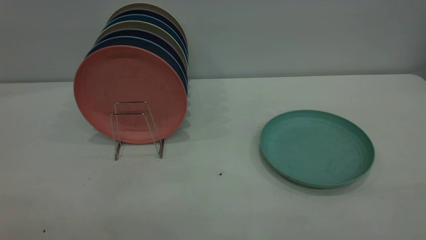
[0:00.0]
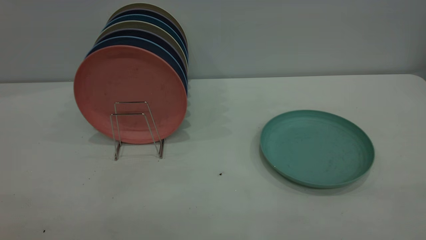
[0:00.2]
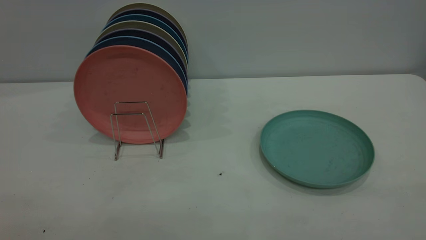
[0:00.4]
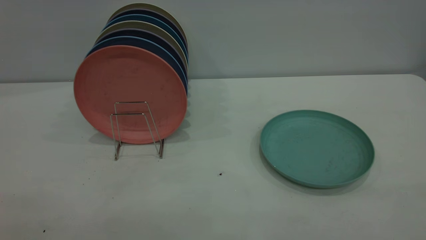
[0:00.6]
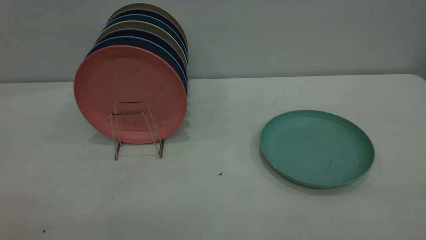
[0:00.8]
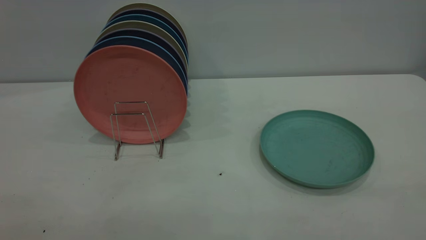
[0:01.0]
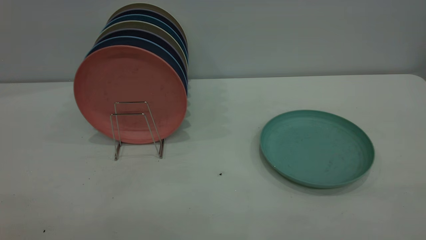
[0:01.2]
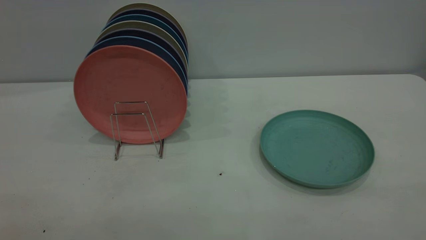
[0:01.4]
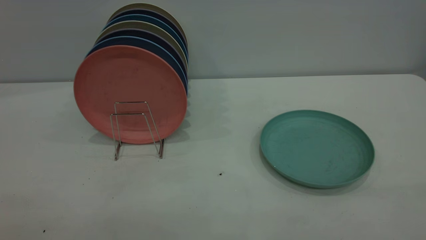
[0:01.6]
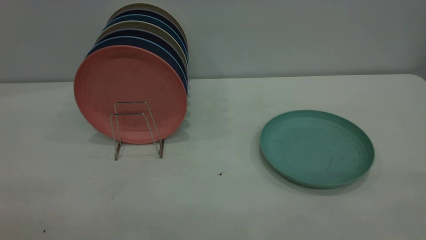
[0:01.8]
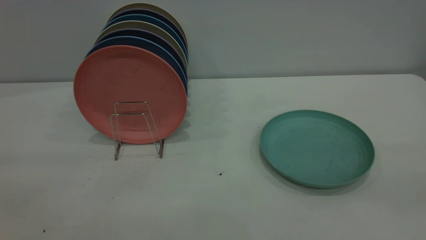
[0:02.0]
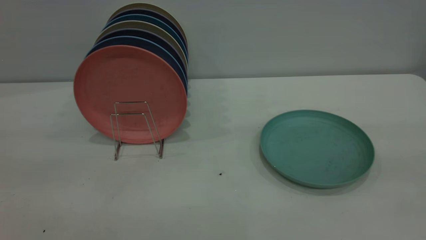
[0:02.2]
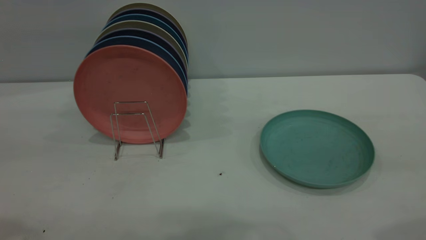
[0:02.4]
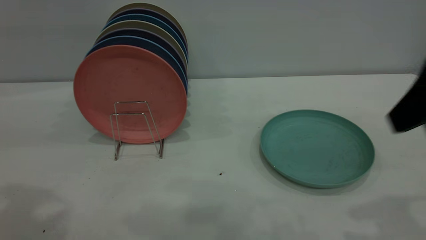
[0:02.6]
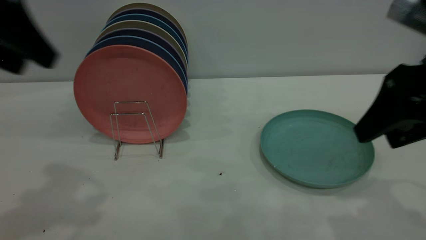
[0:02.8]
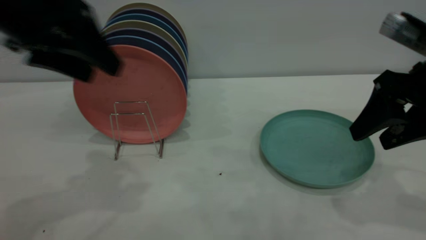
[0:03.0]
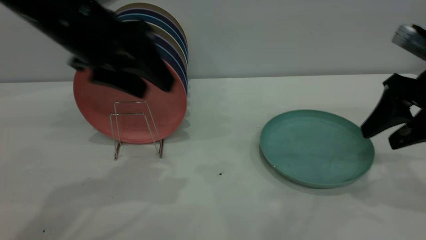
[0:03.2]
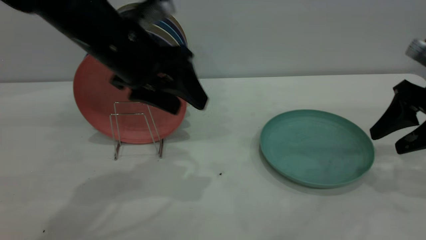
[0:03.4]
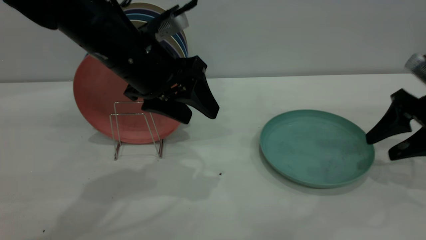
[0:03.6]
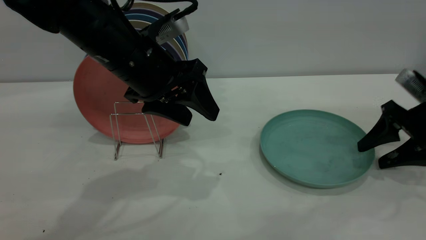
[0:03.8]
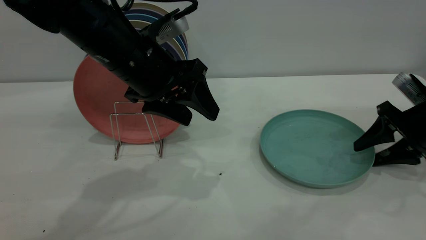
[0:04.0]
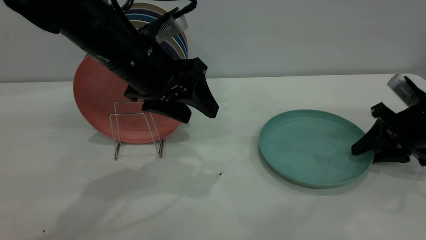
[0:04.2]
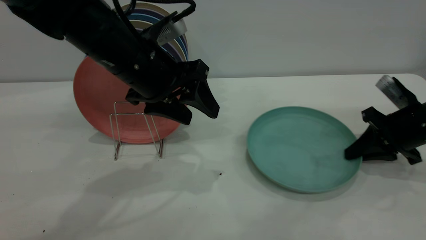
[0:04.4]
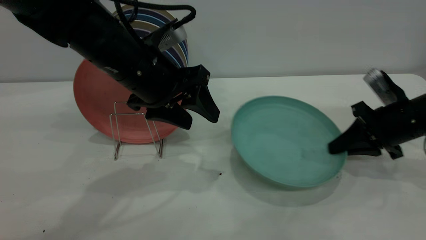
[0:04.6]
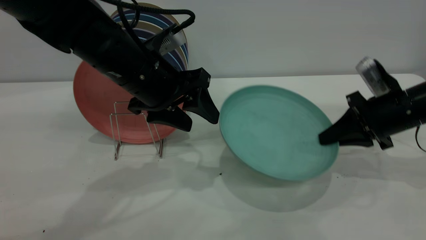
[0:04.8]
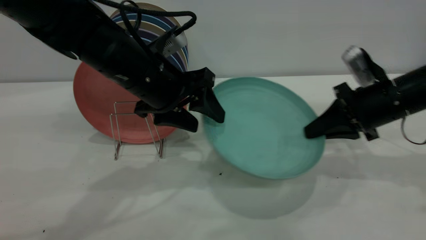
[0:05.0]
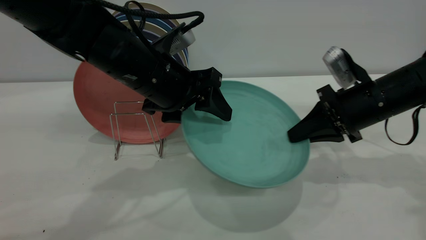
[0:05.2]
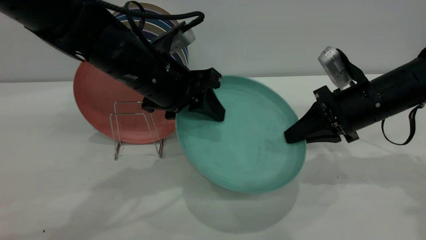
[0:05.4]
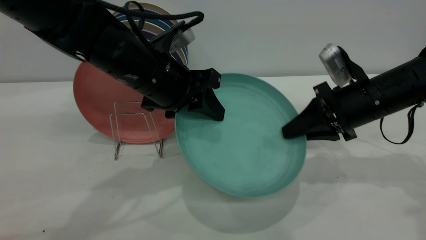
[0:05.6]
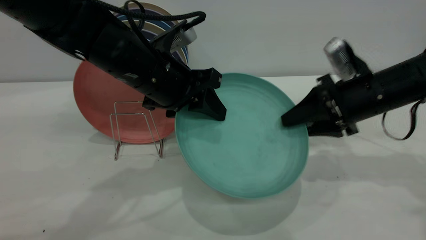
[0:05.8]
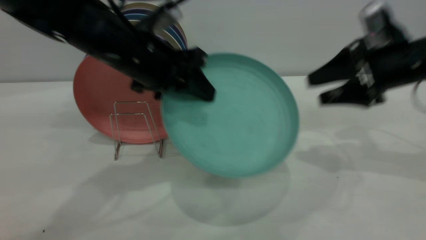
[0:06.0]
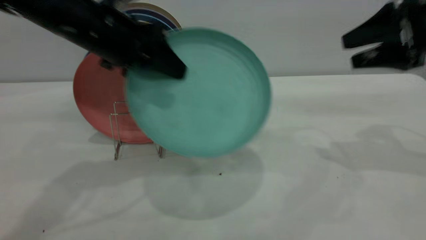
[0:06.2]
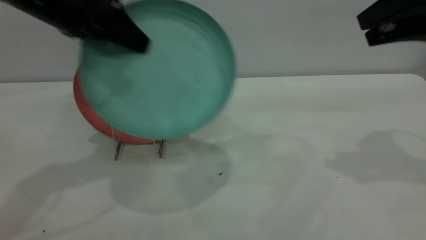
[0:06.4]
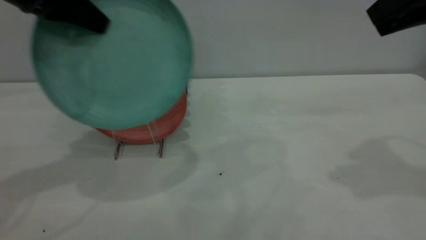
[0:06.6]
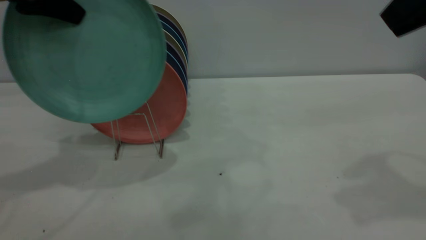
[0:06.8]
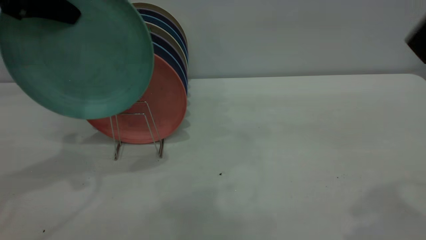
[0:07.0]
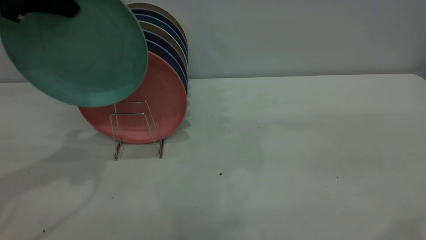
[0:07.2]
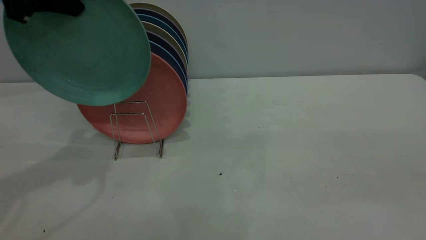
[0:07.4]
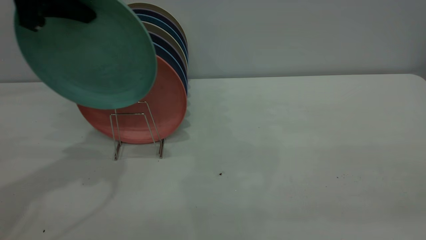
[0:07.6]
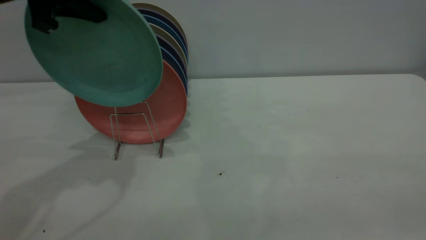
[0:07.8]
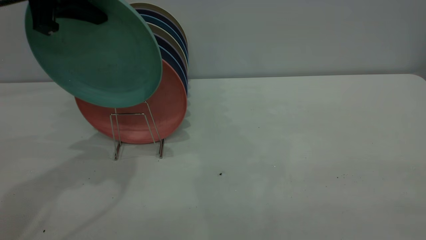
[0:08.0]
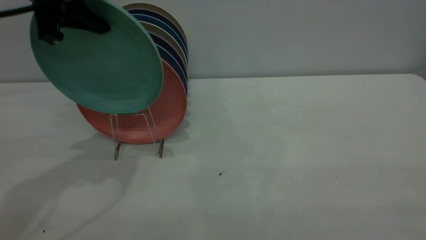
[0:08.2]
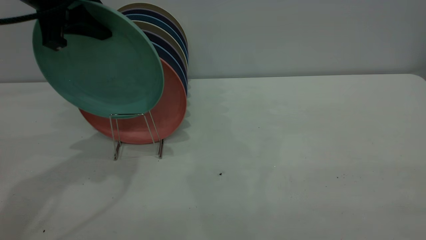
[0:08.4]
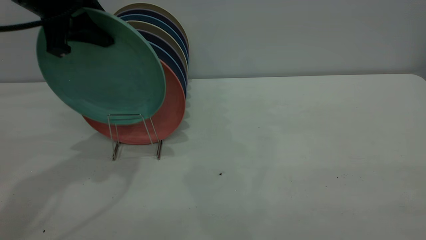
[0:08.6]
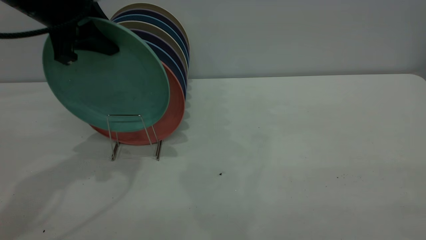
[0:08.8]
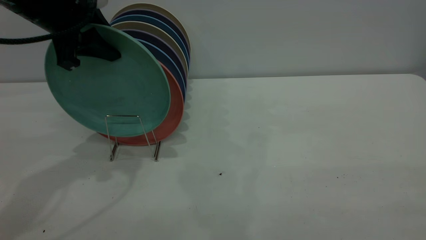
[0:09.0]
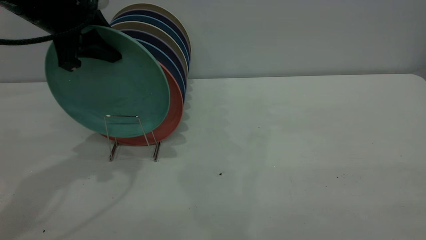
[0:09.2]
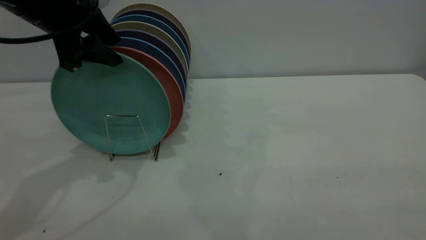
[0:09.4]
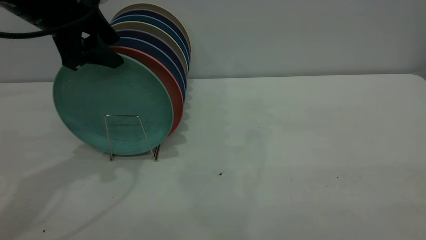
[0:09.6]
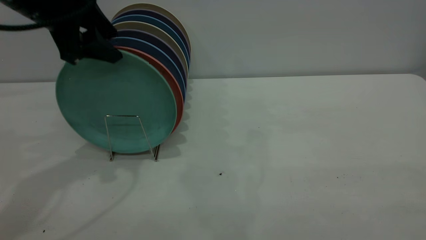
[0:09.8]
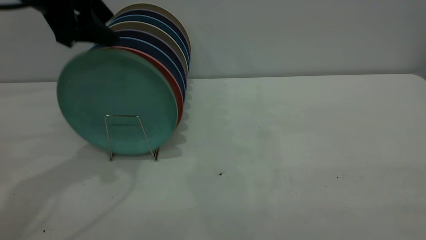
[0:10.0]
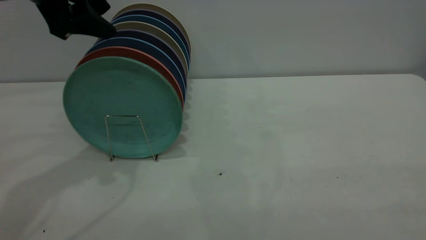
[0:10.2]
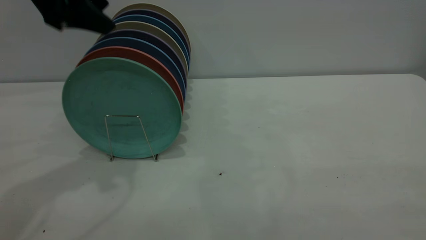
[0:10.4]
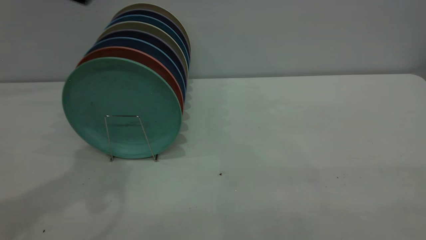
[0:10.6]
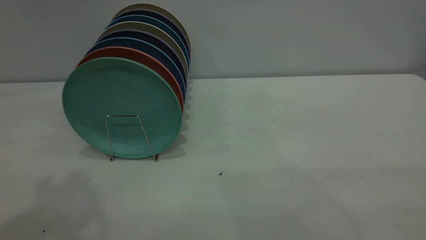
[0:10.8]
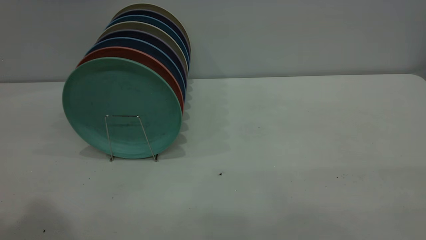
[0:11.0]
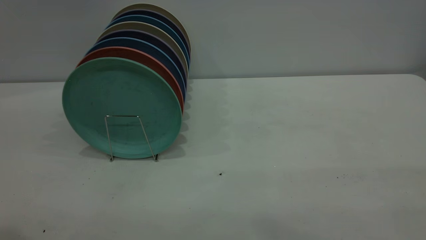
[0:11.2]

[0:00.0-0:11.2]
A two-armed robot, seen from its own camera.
Task of the whole recording: the right gripper grasp the green plate, the right gripper pass the green plate to the left gripper, and the left gripper place the green plate on the plate rack.
Step, 0:00.0 to 0:04.6: Pick up the plate with the right gripper.
Step, 0:04.8 to 0:05.8: Pass the plate from the right gripper to the left gripper.
Step, 0:06.0 to 0:10.2: Place the plate on the shelf.
0:00.0 to 0:01.6: Both grippers stay about where they are.
0:01.6 to 0:03.2: The left gripper shifts some 35 cm forward, while the right gripper shifts roughly 35 cm forward and downward.
0:03.2 to 0:04.8: The right gripper travels downward and forward by about 10 cm, and closes. The left gripper travels downward by roughly 5 cm.
0:04.8 to 0:06.4: The right gripper travels upward by approximately 20 cm, and opens up; the left gripper goes roughly 15 cm to the left and upward, and closes its fingers.
0:06.4 to 0:08.0: The right gripper moves backward, roughly 30 cm.
0:08.0 to 0:09.6: The left gripper heads downward, covering some 5 cm, and opens.
0:09.6 to 0:11.2: The left gripper heads backward and upward, covering approximately 30 cm.

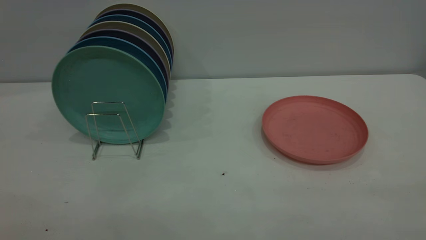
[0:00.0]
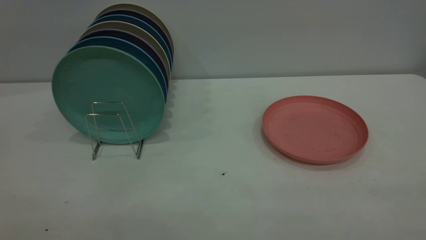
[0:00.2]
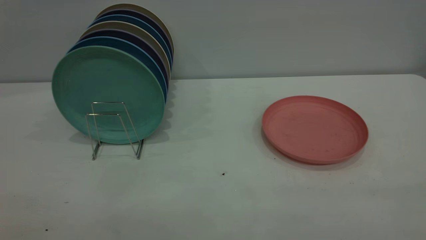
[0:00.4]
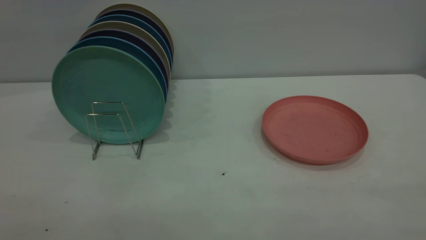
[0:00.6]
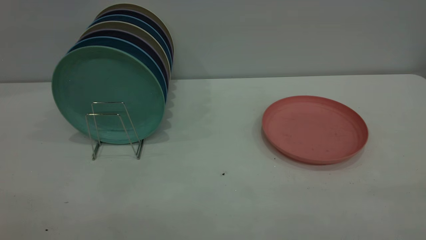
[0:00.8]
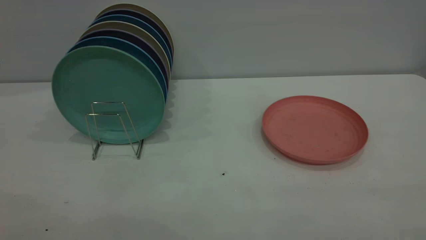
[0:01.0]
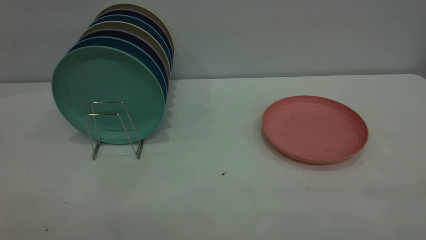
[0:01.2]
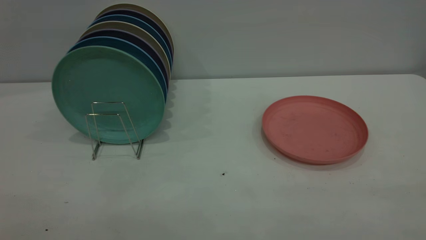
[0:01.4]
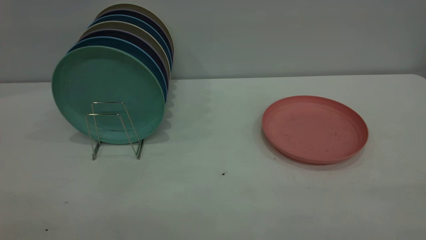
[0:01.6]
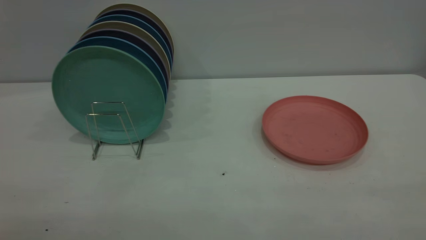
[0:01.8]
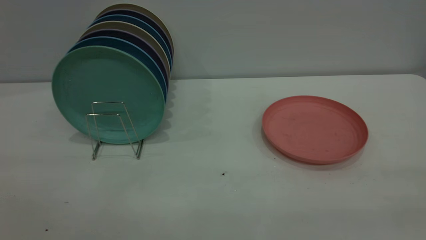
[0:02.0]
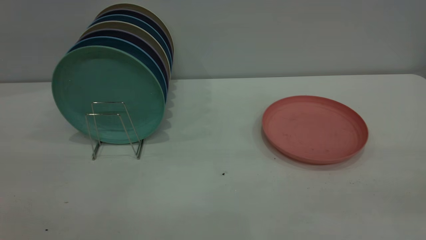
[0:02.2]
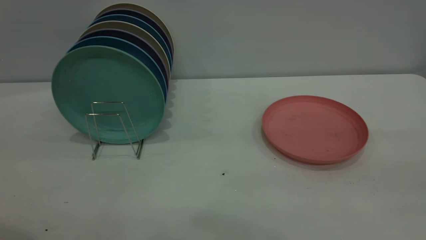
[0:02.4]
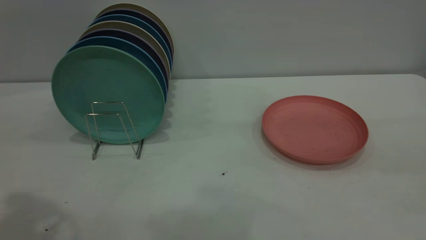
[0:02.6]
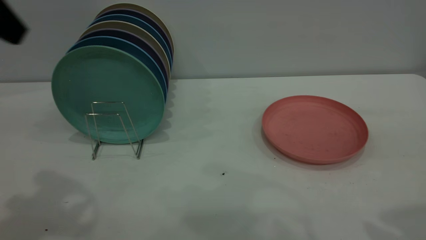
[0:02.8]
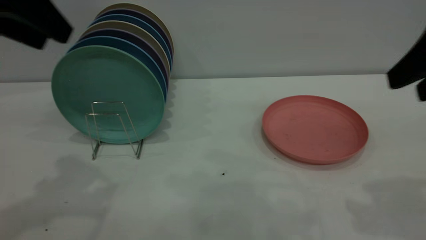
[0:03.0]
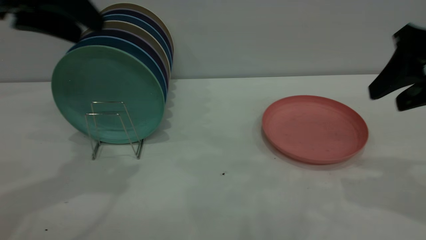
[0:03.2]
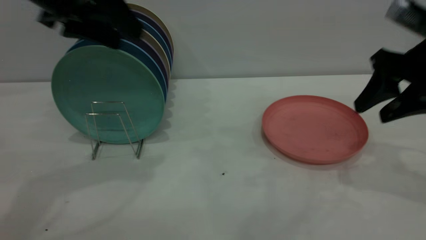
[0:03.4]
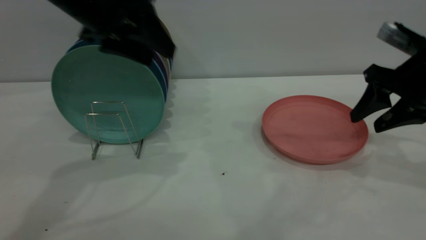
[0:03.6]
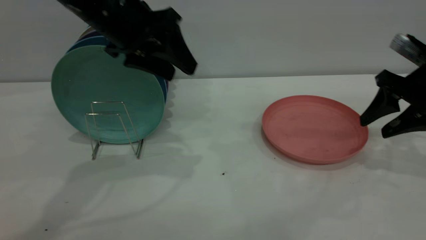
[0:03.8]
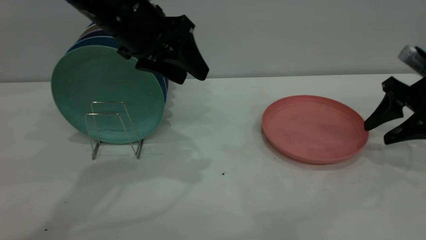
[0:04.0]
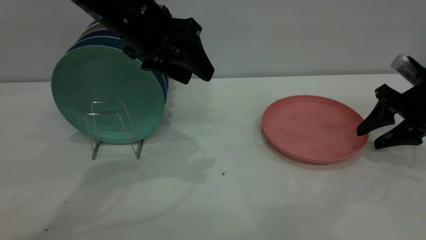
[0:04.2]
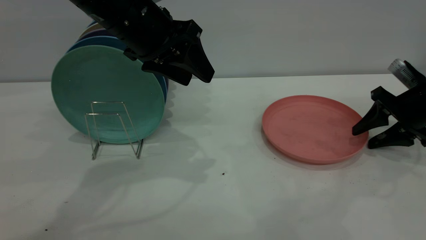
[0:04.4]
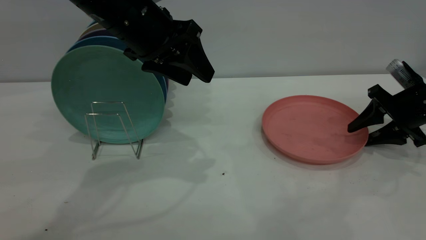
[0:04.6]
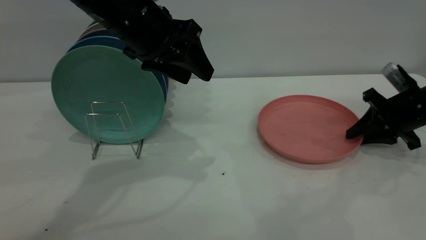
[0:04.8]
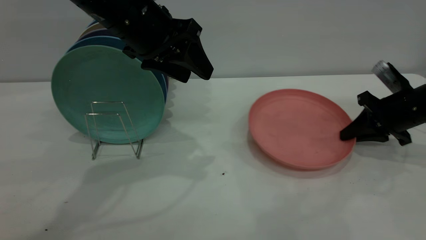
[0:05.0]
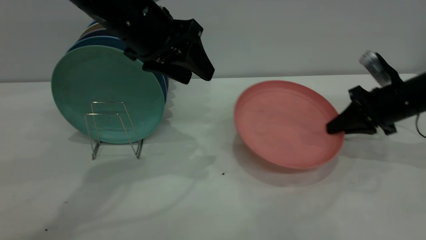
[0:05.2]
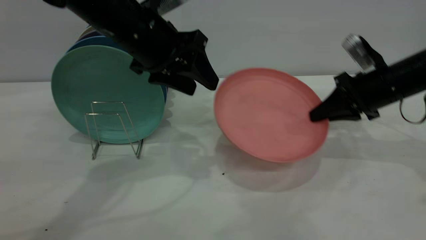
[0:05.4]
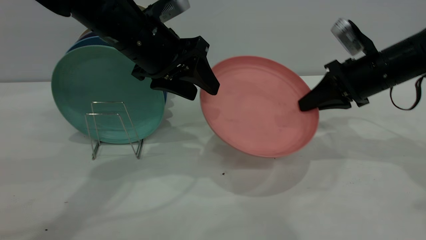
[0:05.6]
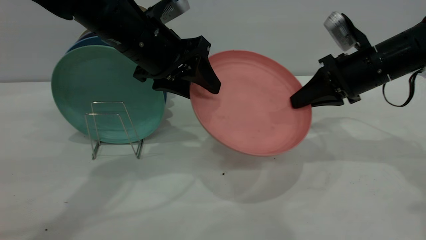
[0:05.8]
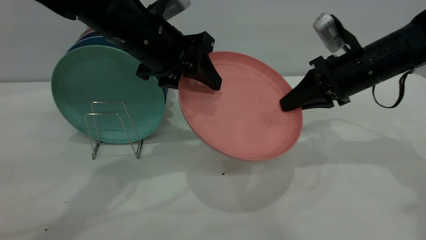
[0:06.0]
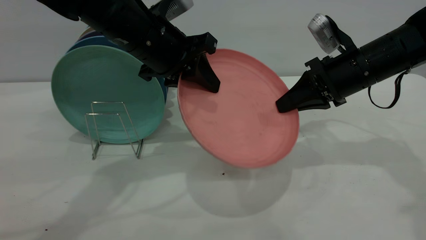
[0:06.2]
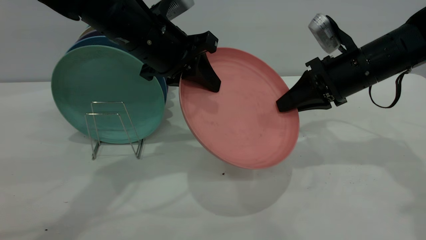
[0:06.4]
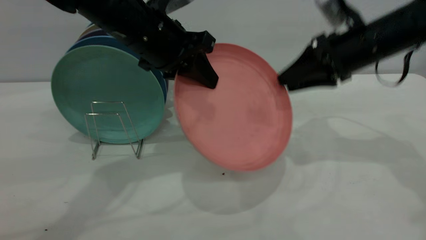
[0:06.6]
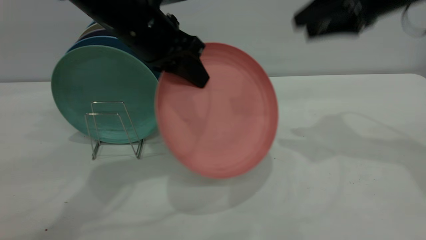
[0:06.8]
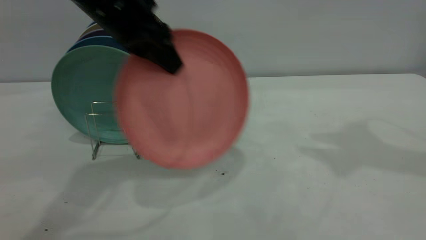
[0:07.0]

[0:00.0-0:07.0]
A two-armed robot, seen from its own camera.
Task of the whole recording: the right gripper grasp the pink plate, the right gripper pass the pink plate to the left gripper, and the left gripper place the pink plate on the plate rack.
Step, 0:00.0 to 0:05.2: Pick up the plate with the right gripper.
Step, 0:05.4 to 0:06.6: Pass the plate from the right gripper to the left gripper.
0:00.0 to 0:01.4: Neither gripper changes place.
0:01.4 to 0:02.8: The left gripper is displaced forward by approximately 30 cm.
0:02.8 to 0:04.2: The left gripper moves to the right, forward and downward, roughly 20 cm, while the right gripper goes approximately 30 cm downward and forward.
0:04.2 to 0:05.6: The right gripper moves to the left, some 10 cm, and closes.
0:05.6 to 0:07.0: The left gripper heads upward, covering some 5 cm, and closes, while the right gripper goes roughly 25 cm upward, and opens its fingers.
